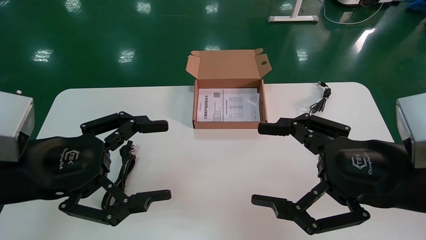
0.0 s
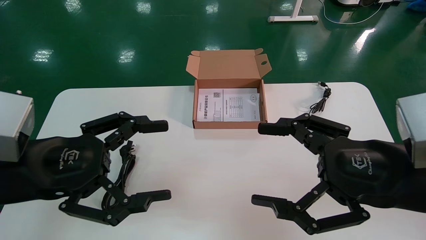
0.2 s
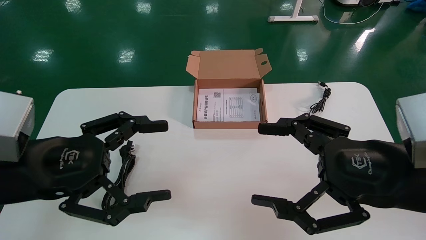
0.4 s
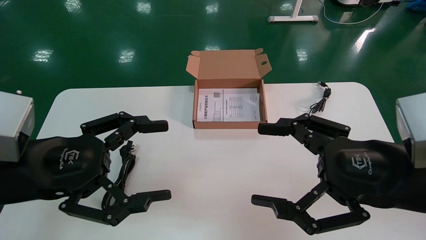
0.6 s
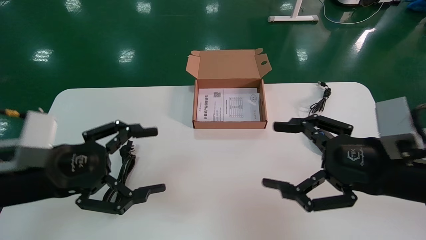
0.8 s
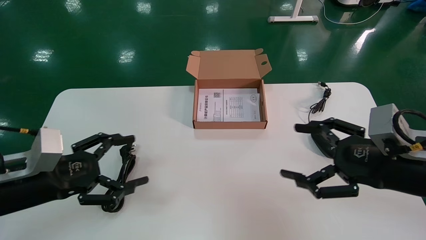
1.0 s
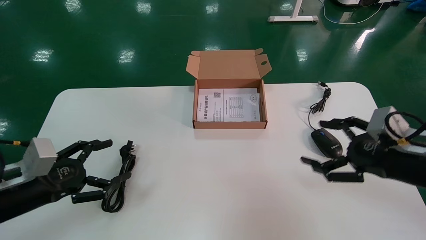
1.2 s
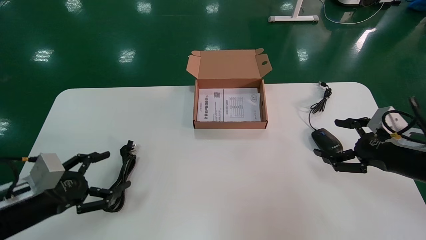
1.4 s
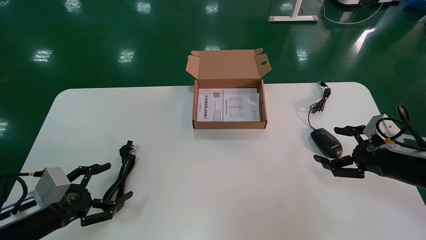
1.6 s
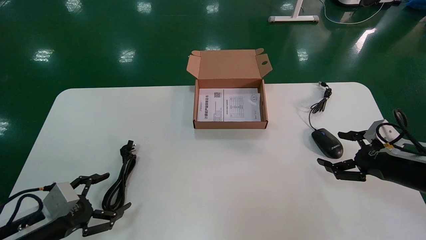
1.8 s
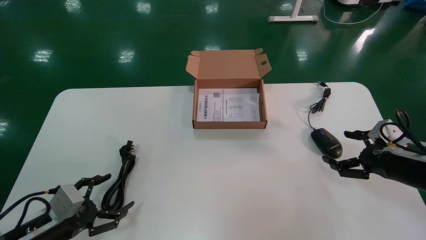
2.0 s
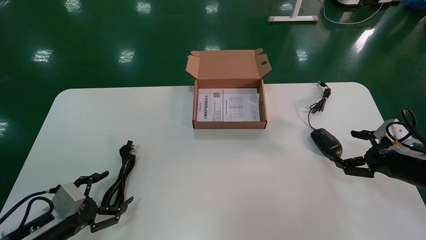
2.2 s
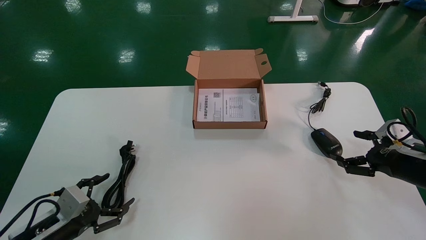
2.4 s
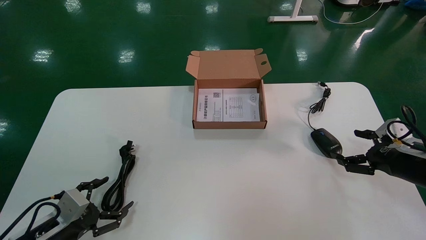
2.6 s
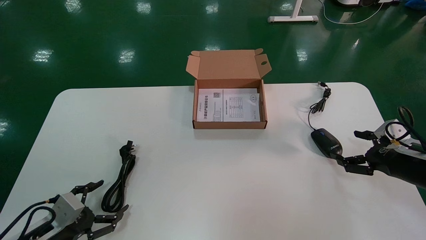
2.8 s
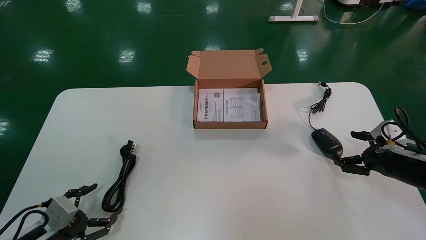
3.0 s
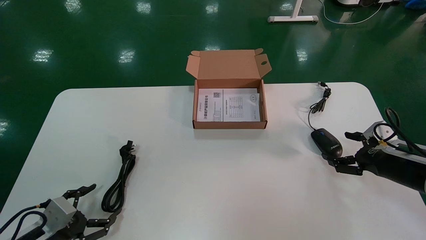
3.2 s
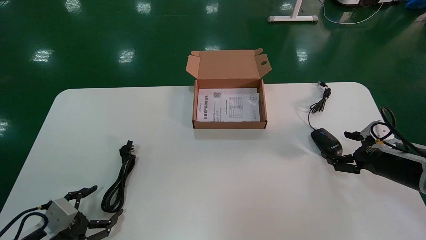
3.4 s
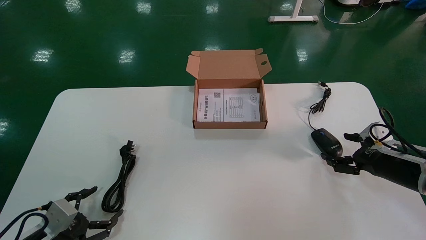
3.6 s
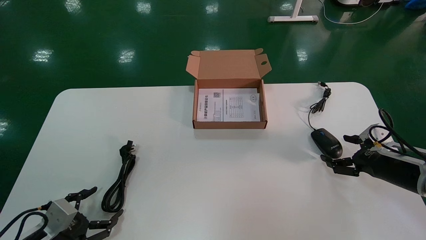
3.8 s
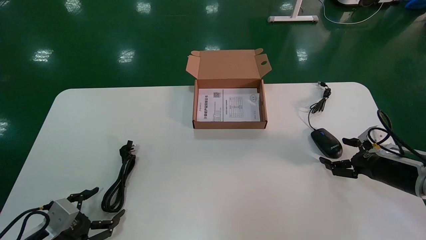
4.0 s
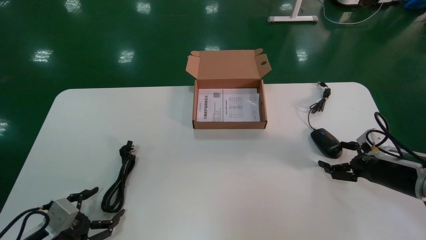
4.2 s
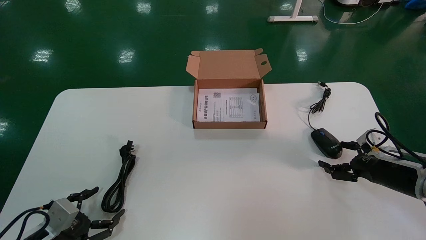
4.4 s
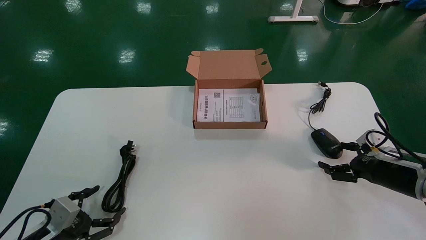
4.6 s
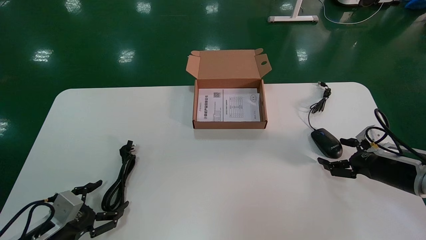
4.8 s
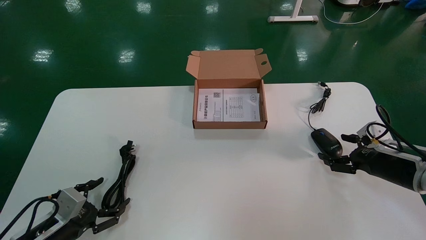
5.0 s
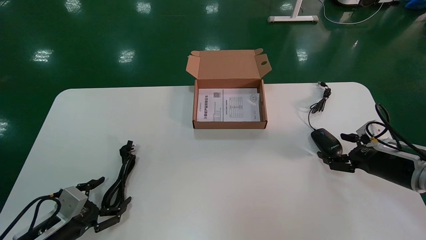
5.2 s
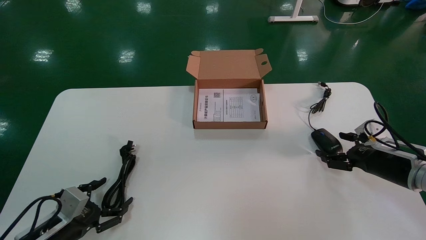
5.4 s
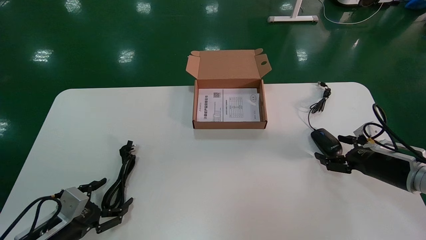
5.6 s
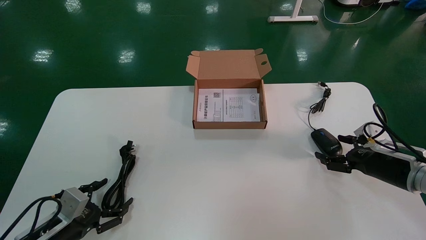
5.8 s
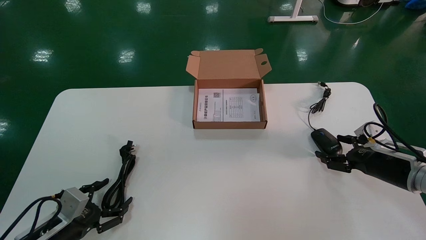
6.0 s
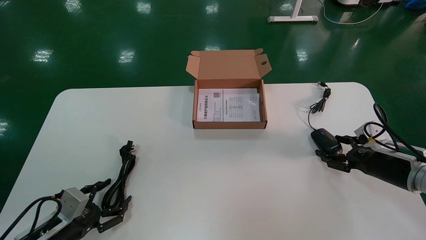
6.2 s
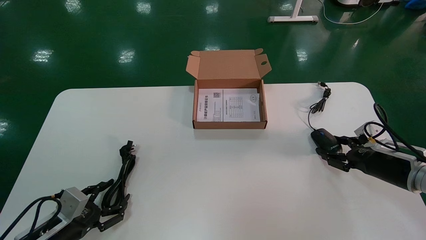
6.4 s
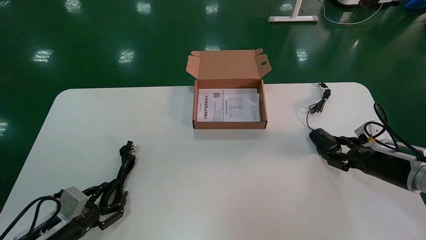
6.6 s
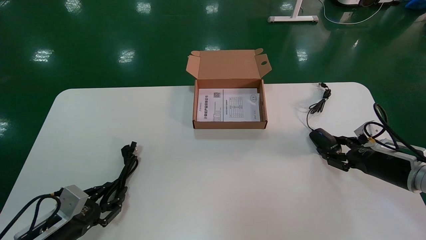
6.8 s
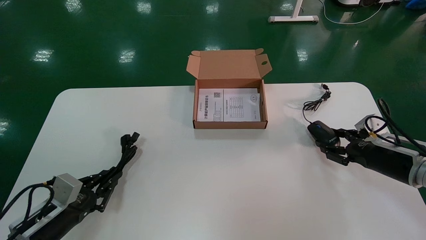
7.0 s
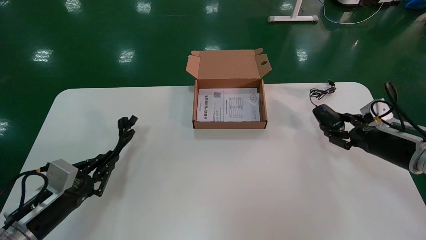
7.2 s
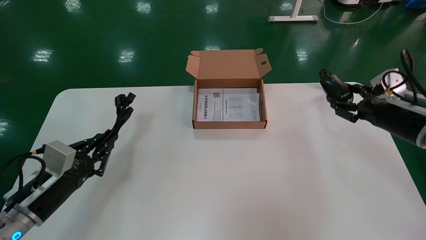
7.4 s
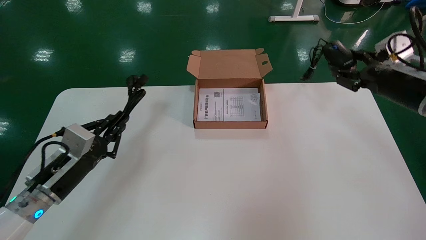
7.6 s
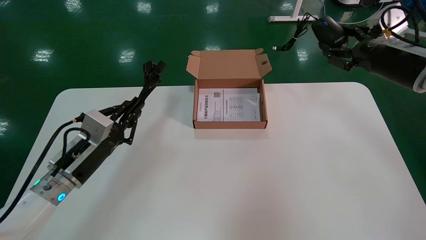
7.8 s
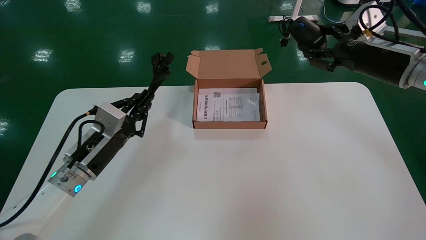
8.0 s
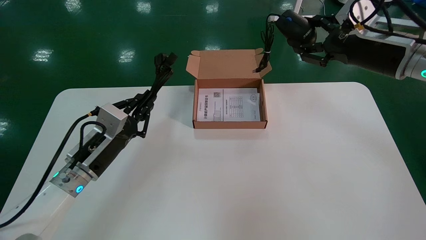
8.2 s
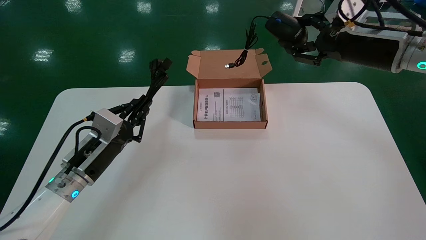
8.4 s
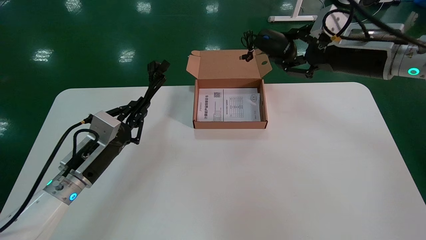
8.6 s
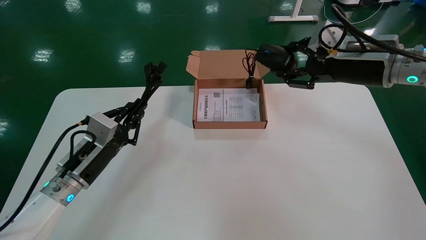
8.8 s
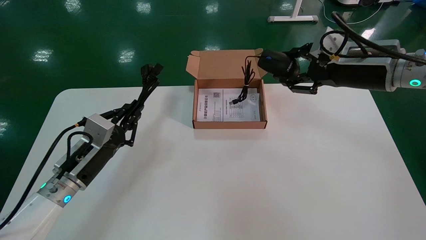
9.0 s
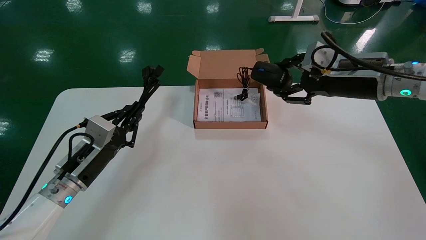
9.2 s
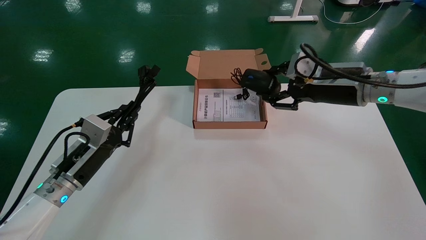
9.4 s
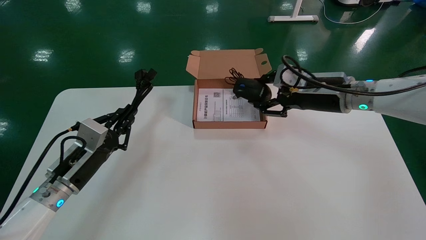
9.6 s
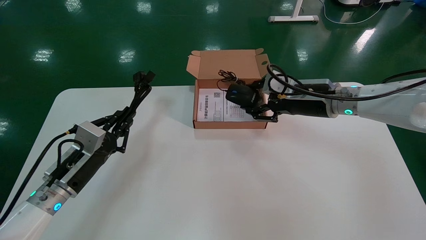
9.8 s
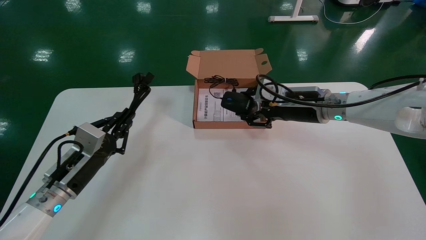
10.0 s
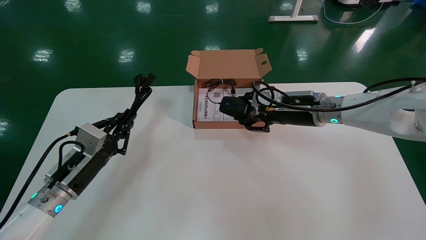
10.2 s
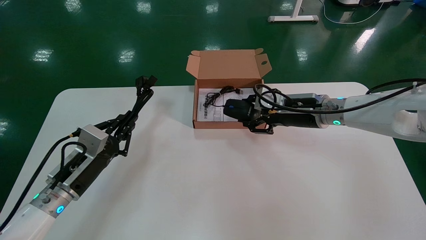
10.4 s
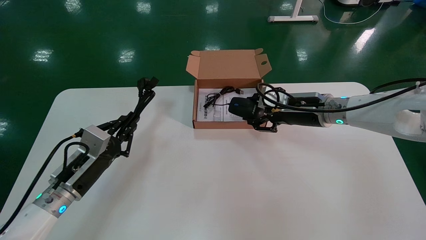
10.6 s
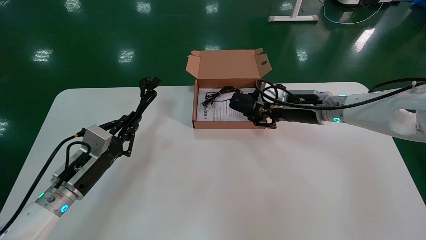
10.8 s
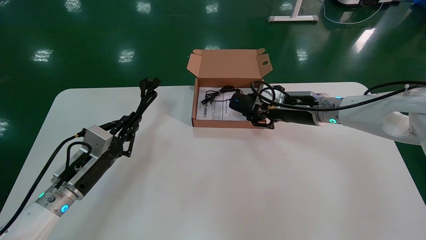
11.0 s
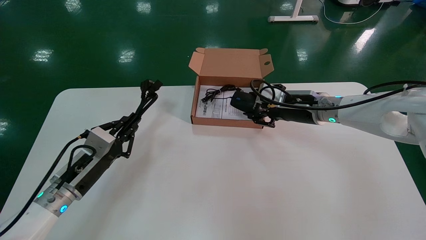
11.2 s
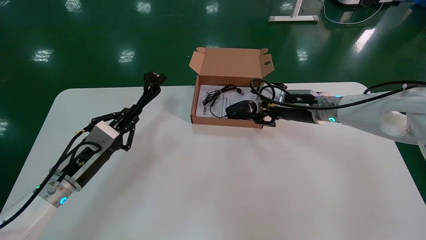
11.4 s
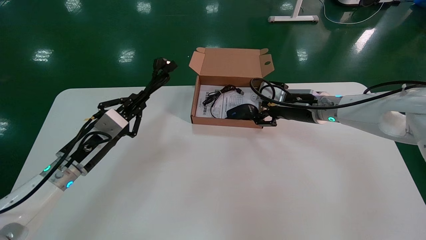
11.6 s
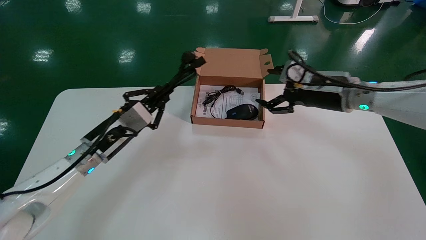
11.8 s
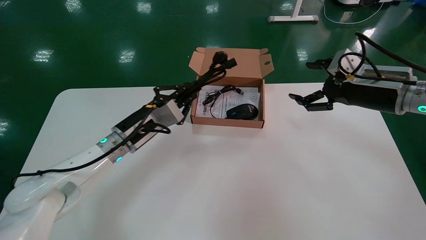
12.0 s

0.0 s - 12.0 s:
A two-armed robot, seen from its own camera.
Step, 1.0 s - 6.8 s: Grab and pick up the mouse and power cord from the accessory packaging area.
0.0 s - 1.6 s: The right gripper is displaced to the right, forward and downward by about 20 cm, while the left gripper moves downward and to the left, some 20 cm.
1.6 s - 3.0 s: The right gripper moves approximately 5 cm; the left gripper moves downward, about 10 cm.
3.0 s - 6.0 s: The grippers move only a little.
6.0 s - 7.6 s: The left gripper travels upward and forward by approximately 15 cm, and closes; the right gripper is displaced upward by approximately 15 cm, and closes up.
7.6 s - 9.0 s: The right gripper goes roughly 10 cm to the left and upward.
9.0 s - 10.4 s: The right gripper shifts roughly 10 cm downward and to the left.
10.4 s - 12.0 s: The right gripper heads to the right, covering about 10 cm, and opens its fingers. Meanwhile the left gripper travels to the right, forward and upward by roughly 15 cm.

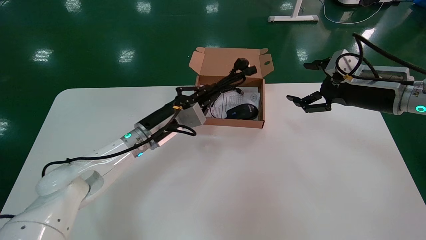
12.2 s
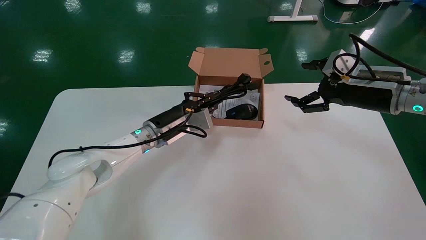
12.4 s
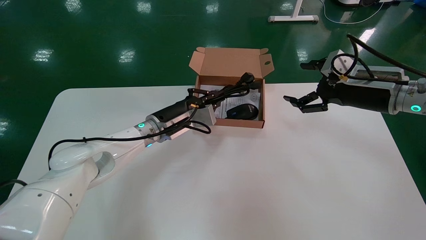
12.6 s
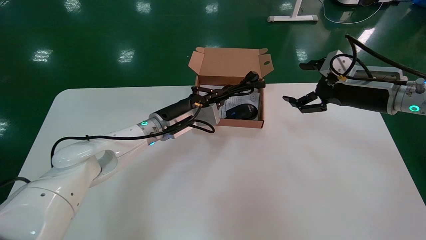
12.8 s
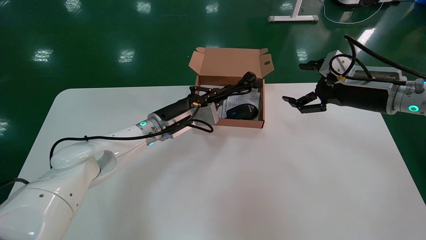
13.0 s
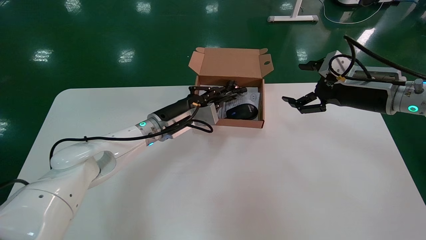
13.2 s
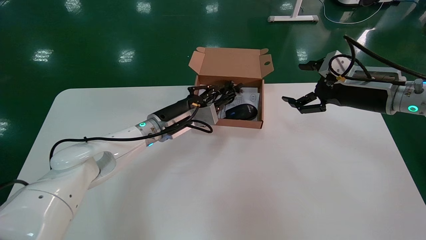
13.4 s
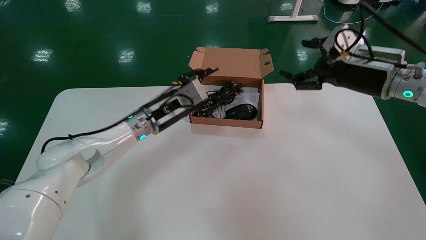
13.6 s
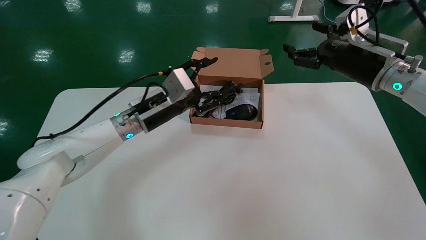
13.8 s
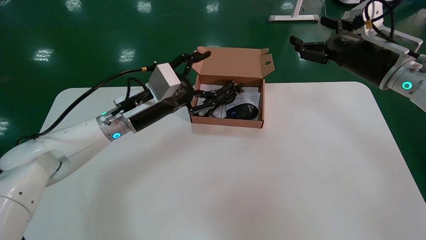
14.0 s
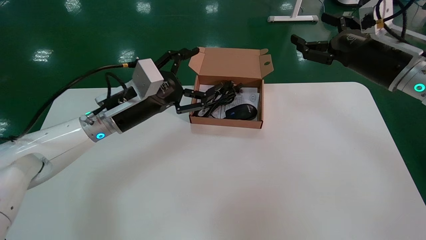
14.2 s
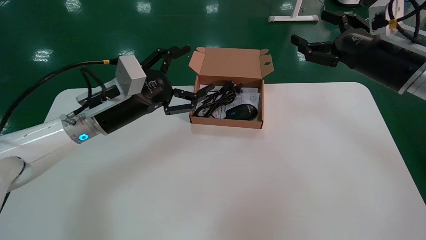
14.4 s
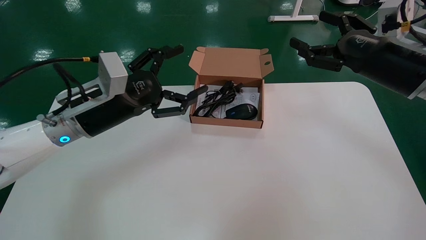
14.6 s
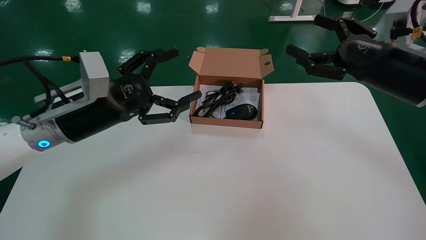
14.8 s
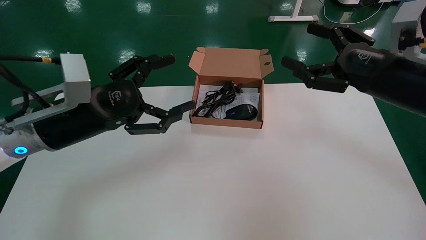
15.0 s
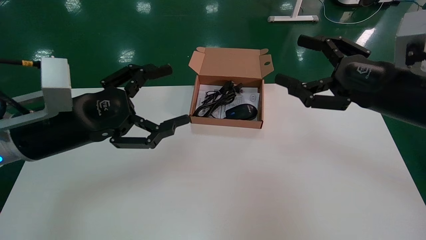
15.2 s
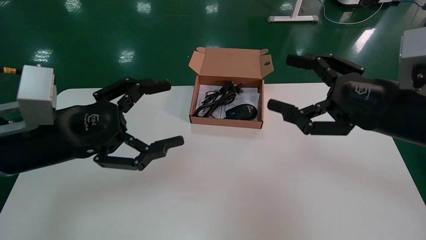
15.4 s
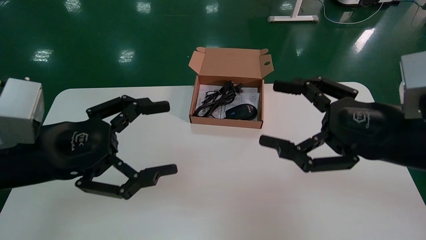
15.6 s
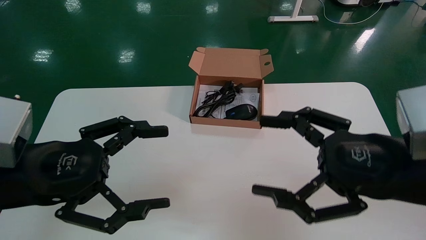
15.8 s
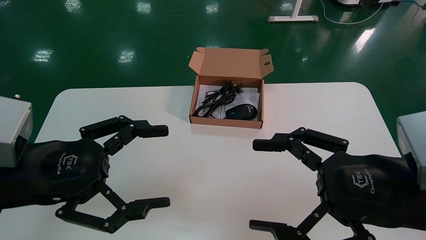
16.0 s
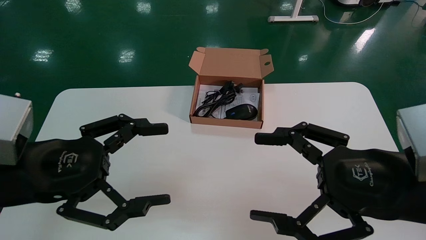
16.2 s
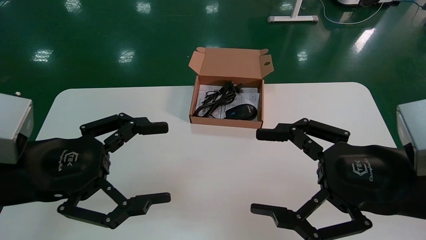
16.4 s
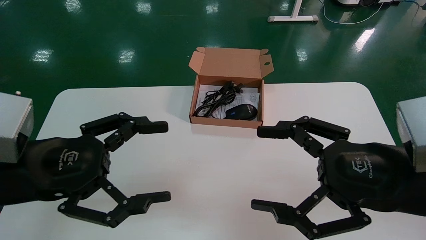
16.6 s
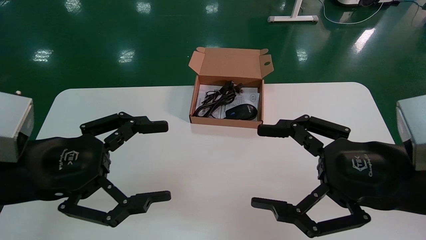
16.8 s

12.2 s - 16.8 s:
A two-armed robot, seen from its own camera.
12.2 s - 13.8 s: The left gripper moves upward, approximately 5 cm, and opens up.
13.8 s - 15.2 s: The left gripper goes approximately 20 cm backward and to the left, and opens up. Meanwhile the right gripper moves backward, about 15 cm.
15.2 s - 16.8 s: Both grippers move backward, approximately 10 cm.
